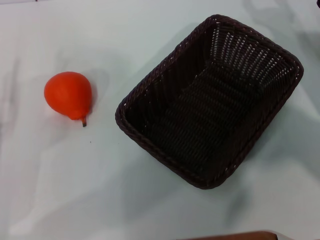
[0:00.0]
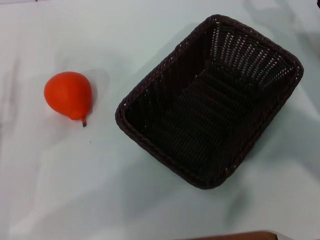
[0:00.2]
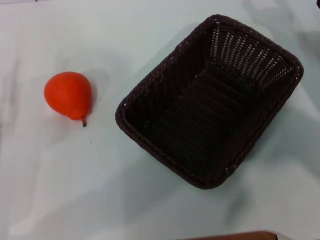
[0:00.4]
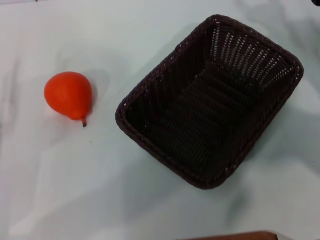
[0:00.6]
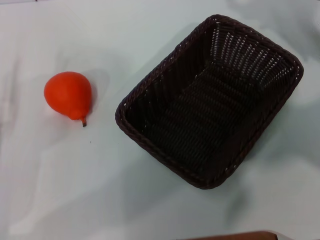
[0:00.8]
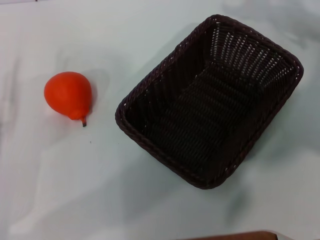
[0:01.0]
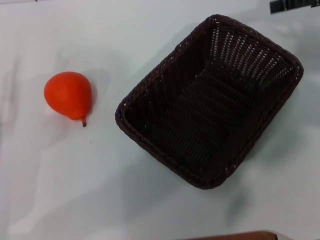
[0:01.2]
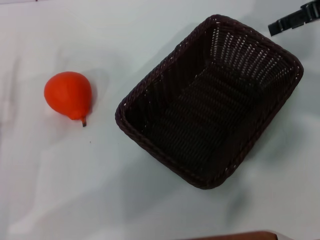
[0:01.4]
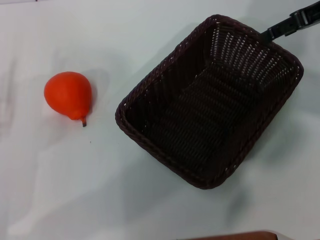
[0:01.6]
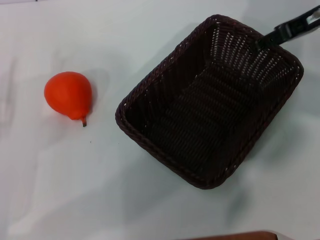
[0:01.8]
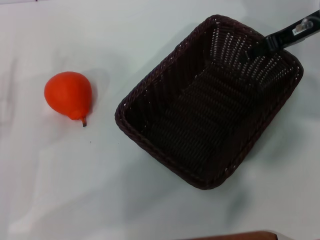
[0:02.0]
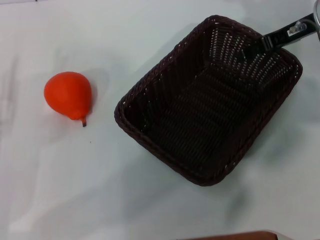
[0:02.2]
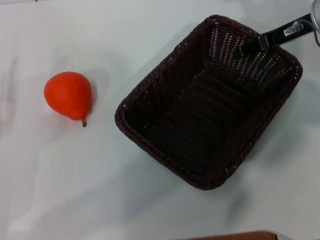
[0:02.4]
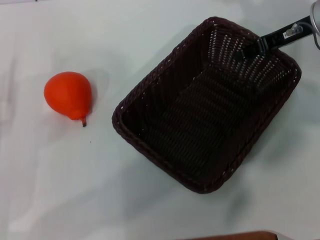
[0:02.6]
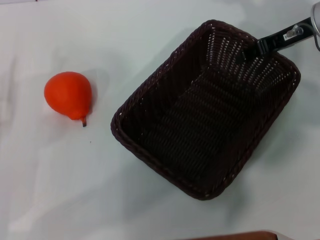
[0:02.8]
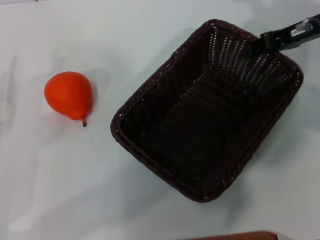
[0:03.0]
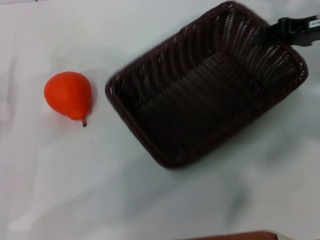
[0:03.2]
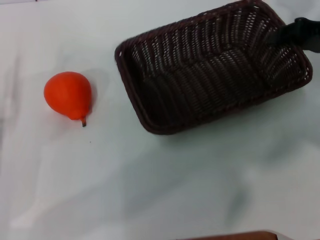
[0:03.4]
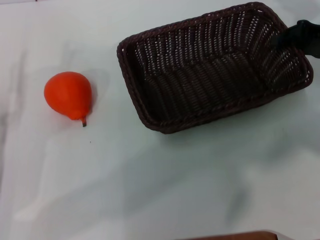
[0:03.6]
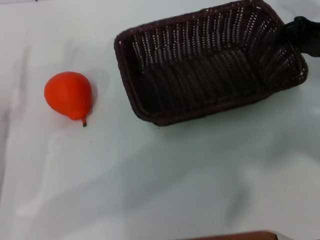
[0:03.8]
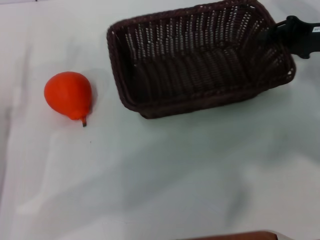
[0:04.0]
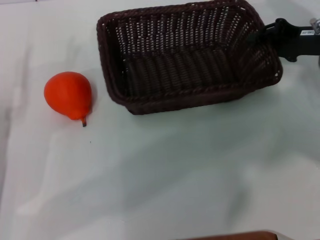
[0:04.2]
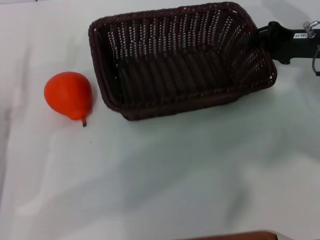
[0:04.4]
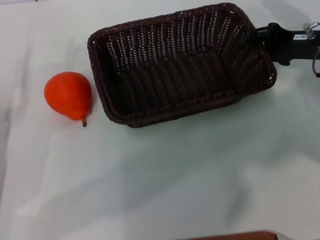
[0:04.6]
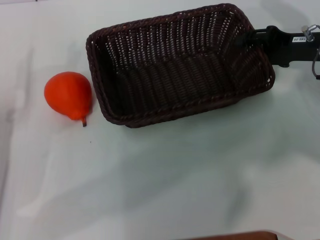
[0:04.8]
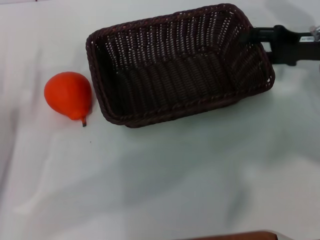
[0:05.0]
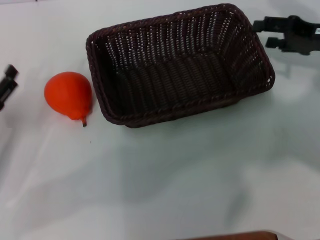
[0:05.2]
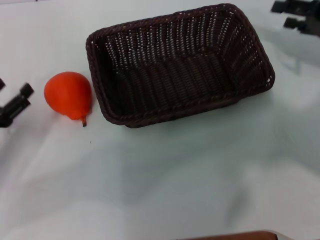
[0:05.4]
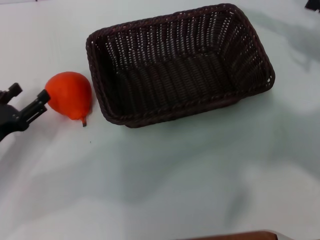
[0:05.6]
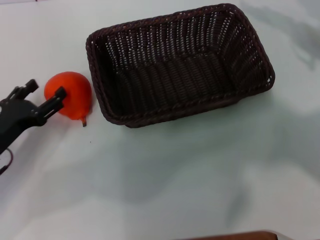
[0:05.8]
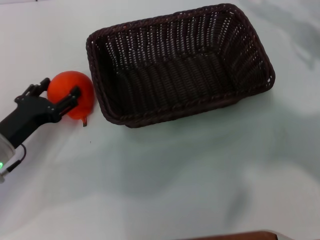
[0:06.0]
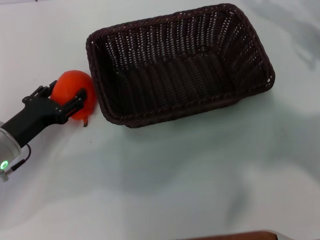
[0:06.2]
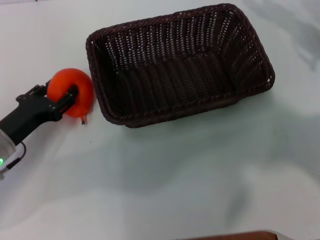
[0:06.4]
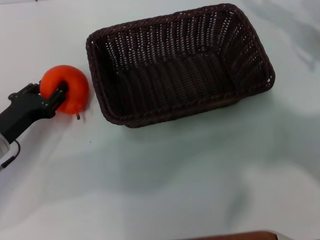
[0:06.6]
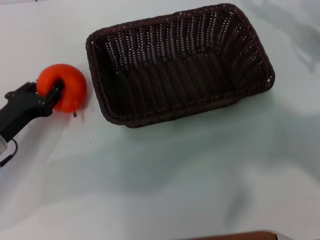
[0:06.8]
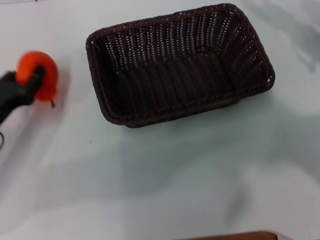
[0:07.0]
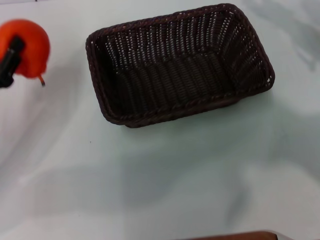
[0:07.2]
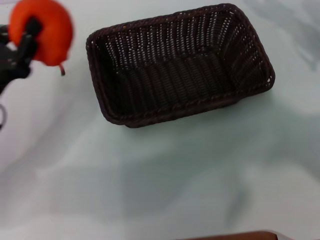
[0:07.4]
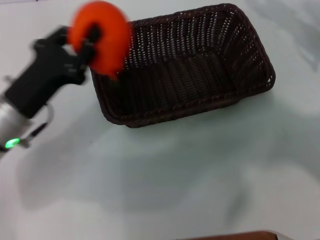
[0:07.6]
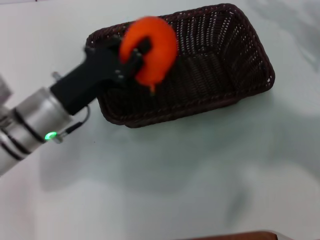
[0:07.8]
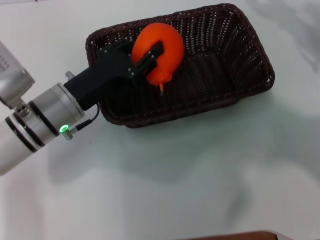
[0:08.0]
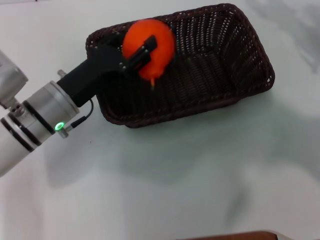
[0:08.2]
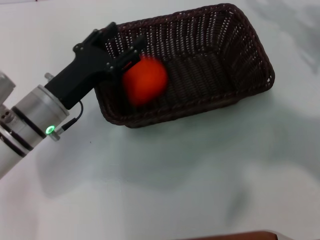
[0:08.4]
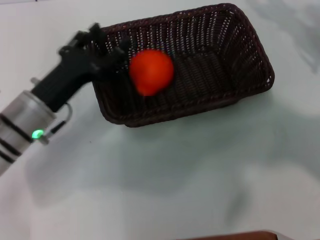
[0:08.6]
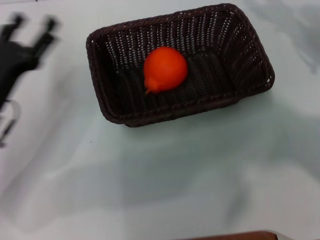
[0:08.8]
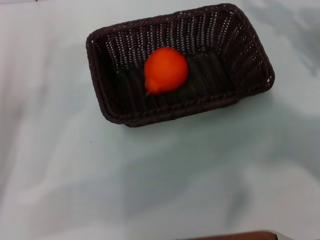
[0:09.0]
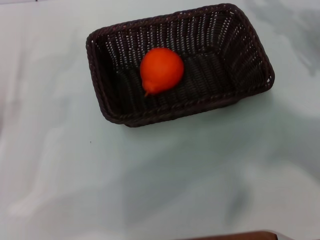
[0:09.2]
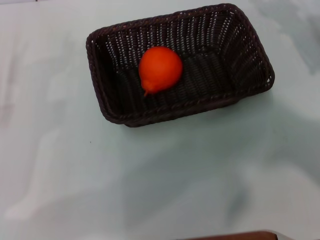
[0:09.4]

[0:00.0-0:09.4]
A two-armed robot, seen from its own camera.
Task of the whole recording: the right gripper pick up the black basket and place it horizontally in the middle of the table, the left gripper pick up the orange and place it into the black basket.
Step, 0:00.0 to 0:03.0: Pick up the dark basket with the right gripper.
Step, 0:03.2 to 0:05.2: Place the dark basket in the center of view with the right gripper.
Step, 0:05.4 to 0:07.0: Pick up the orange with the left gripper.
Step, 0:07.2 to 0:08.2: Place the orange into the dark basket with the left gripper.
0:00.0 to 0:01.6: The right gripper shifts about 15 cm upward and forward.
0:01.6 to 0:03.2: The right gripper goes roughly 5 cm downward, and closes up.
0:03.2 to 0:04.8: The right gripper shifts by roughly 5 cm.
0:04.8 to 0:06.2: The right gripper heads to the right, covering approximately 5 cm, and opens its fingers. The left gripper moves about 5 cm.
0:06.2 to 0:07.8: The left gripper shifts roughly 10 cm to the right and upward, and closes.
0:07.8 to 0:09.4: The left gripper moves to the left, about 15 cm, and opens up.
